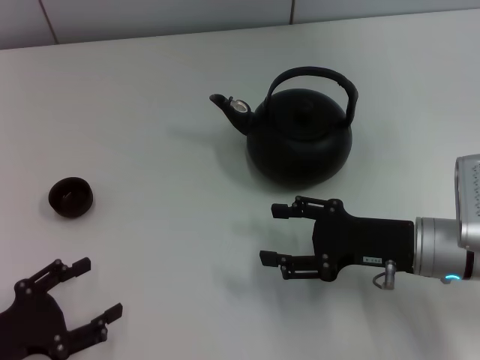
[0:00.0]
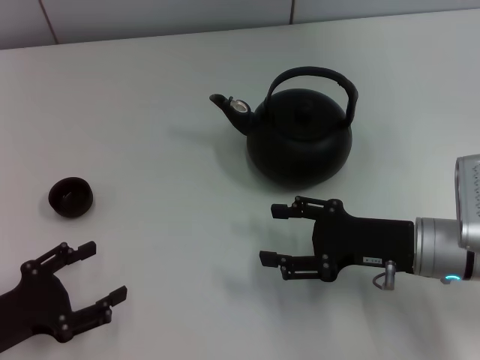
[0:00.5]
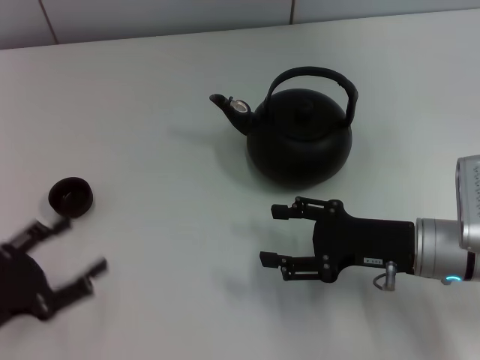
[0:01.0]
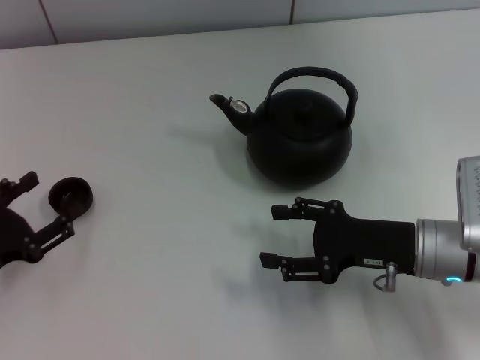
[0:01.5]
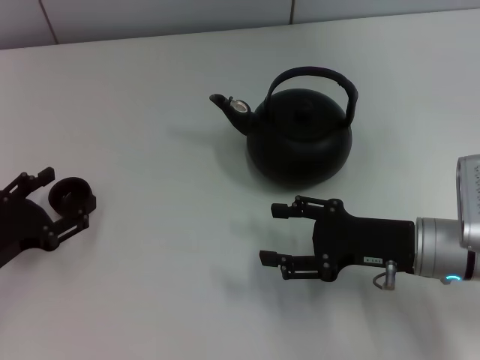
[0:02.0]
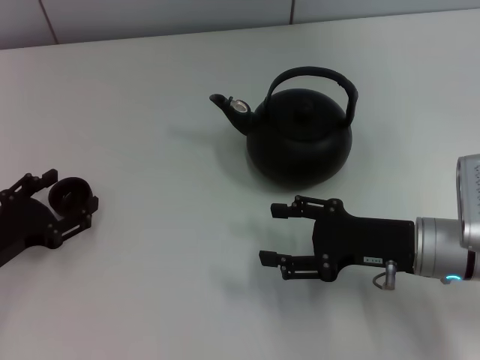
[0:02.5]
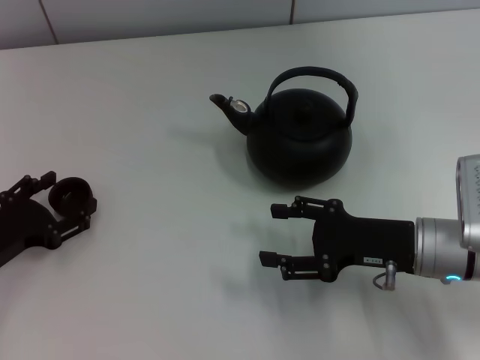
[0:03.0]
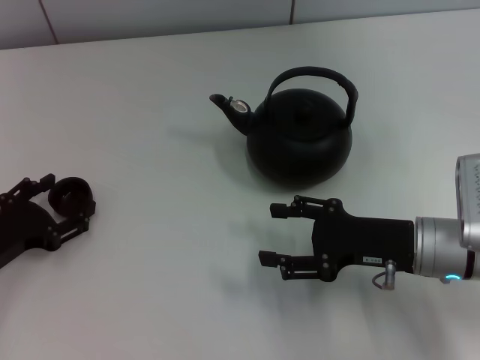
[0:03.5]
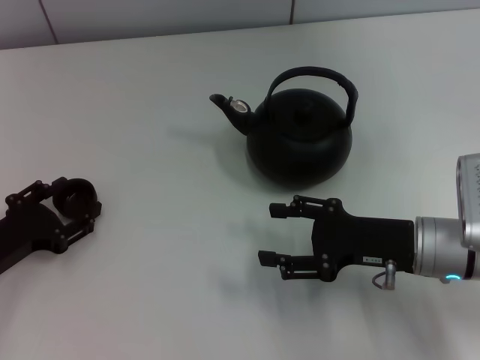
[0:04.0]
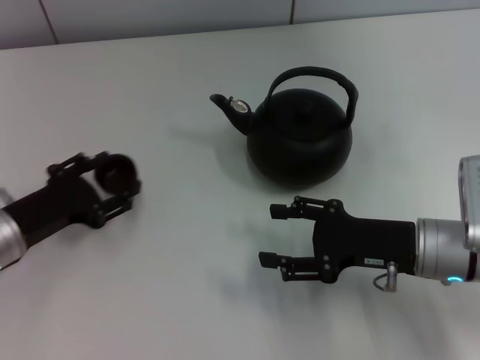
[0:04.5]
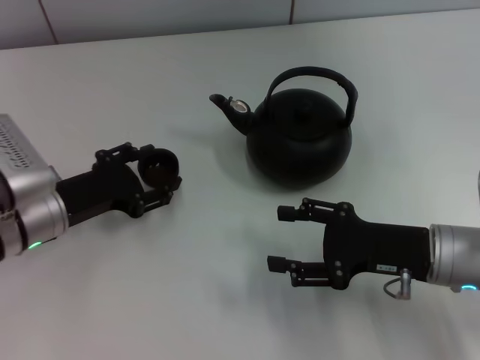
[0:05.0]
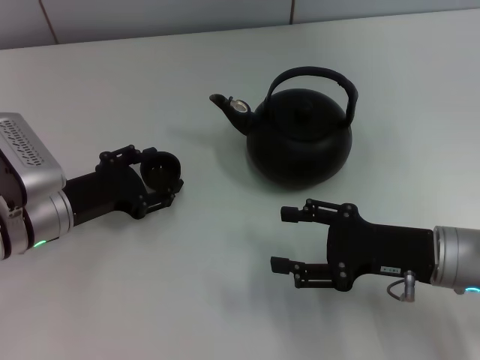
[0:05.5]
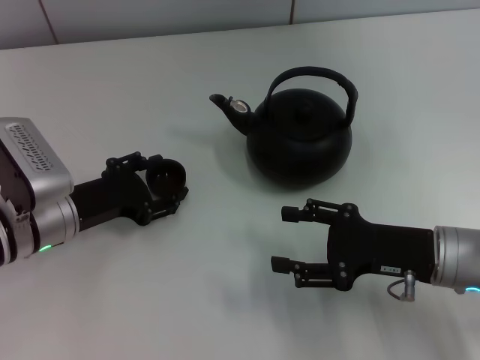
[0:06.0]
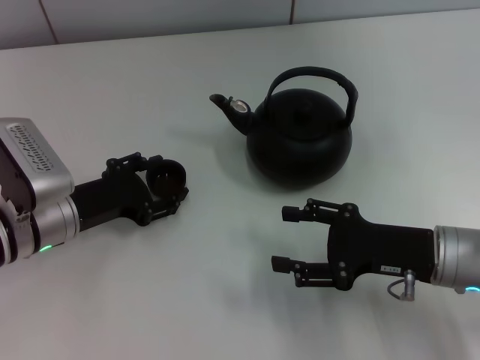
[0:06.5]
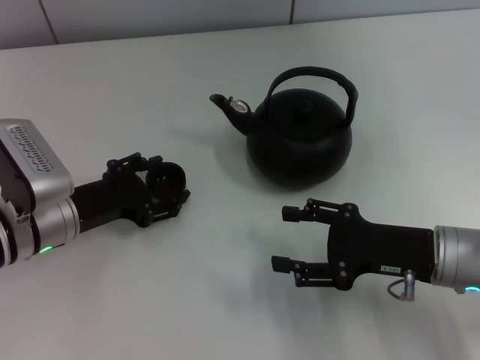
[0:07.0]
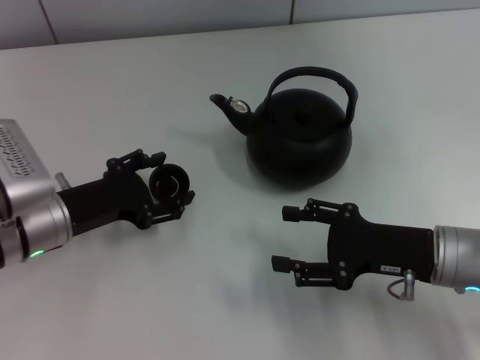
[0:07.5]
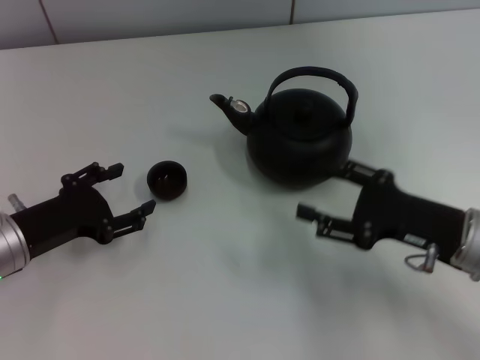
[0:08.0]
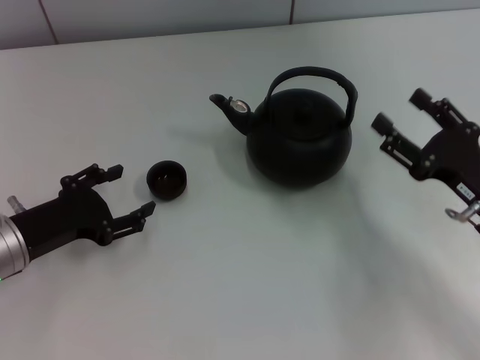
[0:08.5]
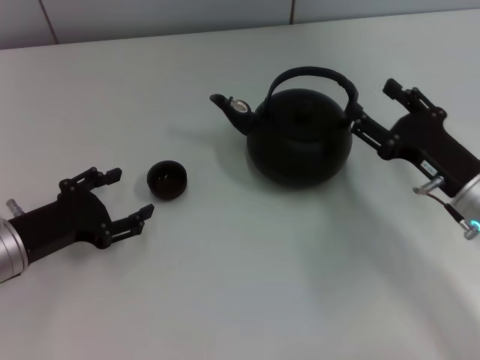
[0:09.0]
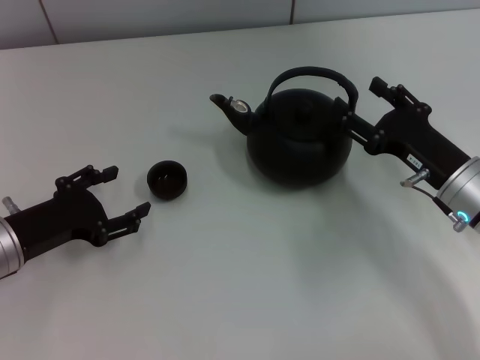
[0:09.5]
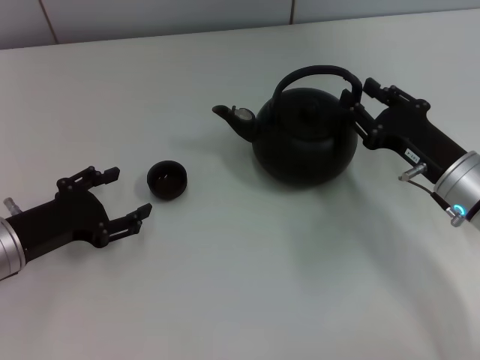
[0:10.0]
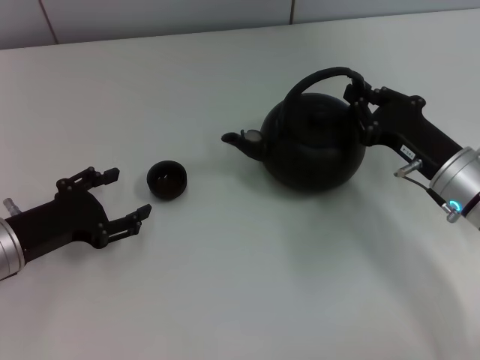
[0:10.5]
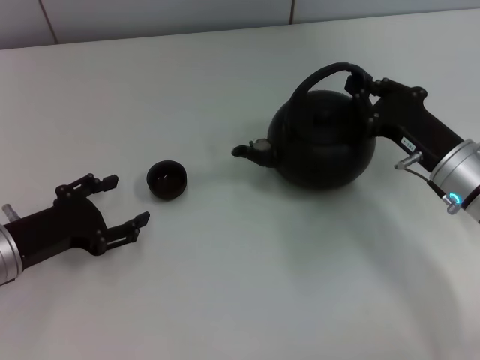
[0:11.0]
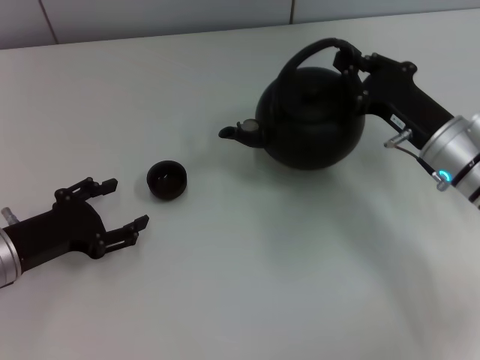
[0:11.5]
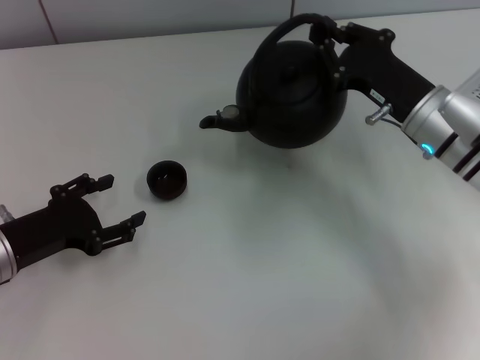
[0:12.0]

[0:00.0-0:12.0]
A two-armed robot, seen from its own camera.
Task of the whole recording: Grasp the handle of the teapot with one hand and pour tea into the teacup.
Step, 0:00.0 to 0:04.5: Pick up the teacup with the left gripper.
Step, 0:05.0 to 0:07.5: Place the teacup in the center of view with the left gripper.
Step, 0:08.0 to 0:11.0: Pick up the teapot with the right gripper.
0:00.0 to 0:02.0: The left gripper travels forward by approximately 10 cm.
0:02.0 to 0:04.0: The left gripper closes its fingers.
0:04.0 to 0:06.0: The left gripper goes approximately 10 cm to the right and forward, and closes.
0:06.0 to 0:08.0: The left gripper shifts by some 5 cm, and opens its fingers.
0:08.0 to 0:10.0: The right gripper is displaced forward by about 5 cm.
0:10.0 to 0:12.0: The right gripper moves forward, approximately 5 cm, and closes its fingers.

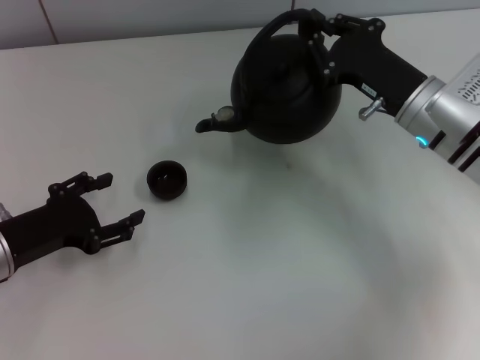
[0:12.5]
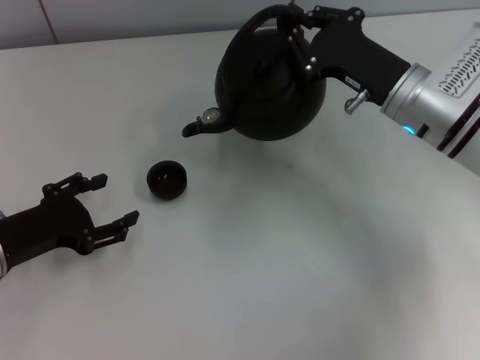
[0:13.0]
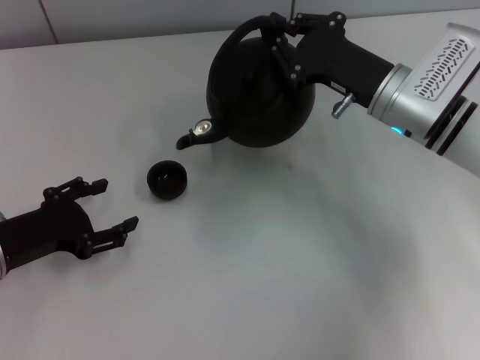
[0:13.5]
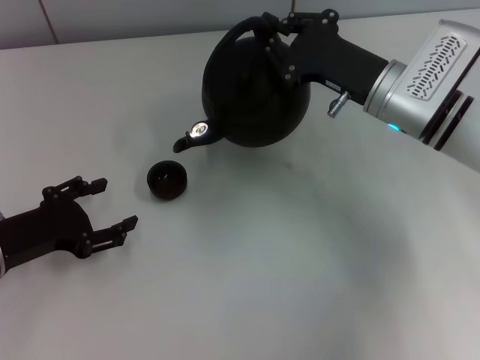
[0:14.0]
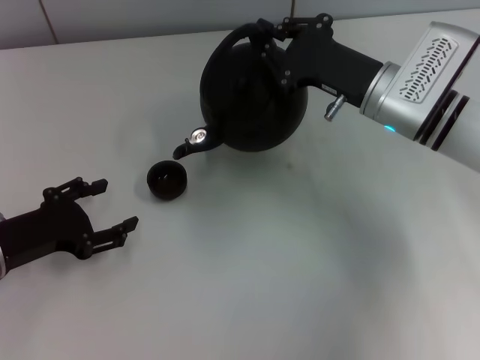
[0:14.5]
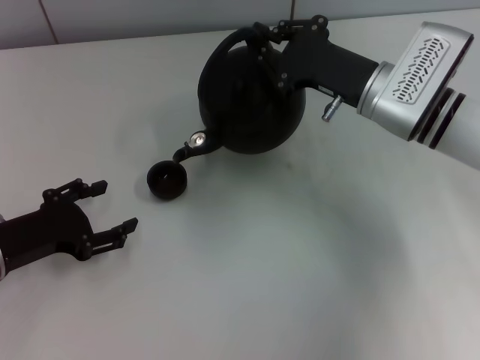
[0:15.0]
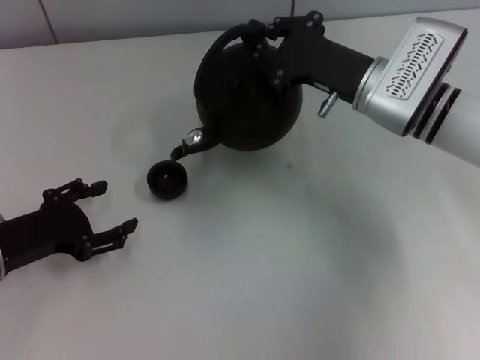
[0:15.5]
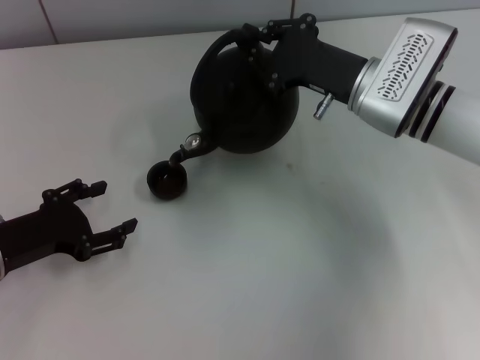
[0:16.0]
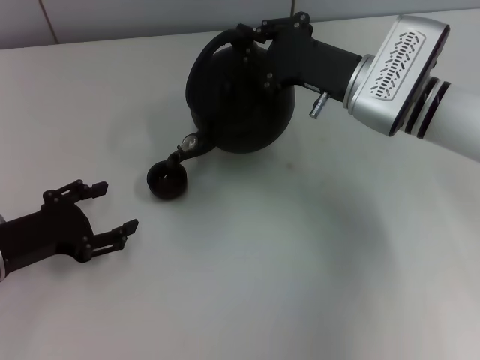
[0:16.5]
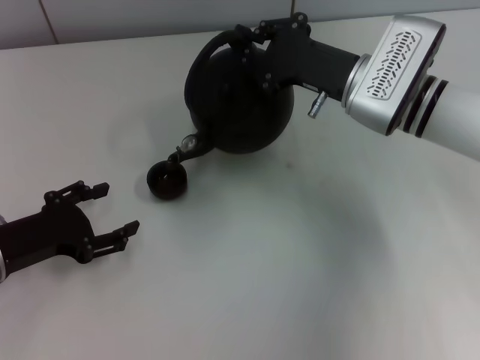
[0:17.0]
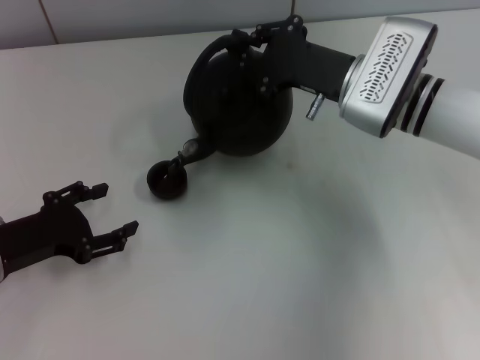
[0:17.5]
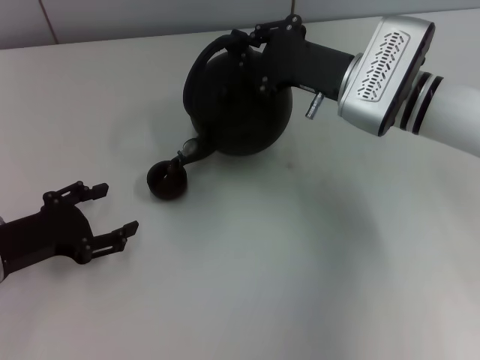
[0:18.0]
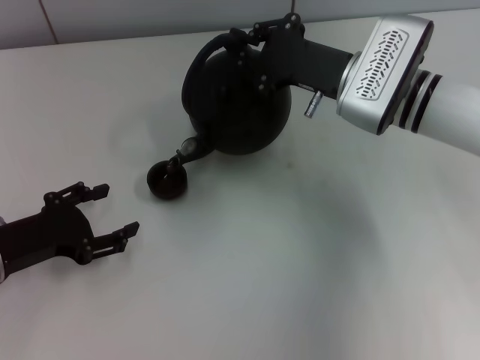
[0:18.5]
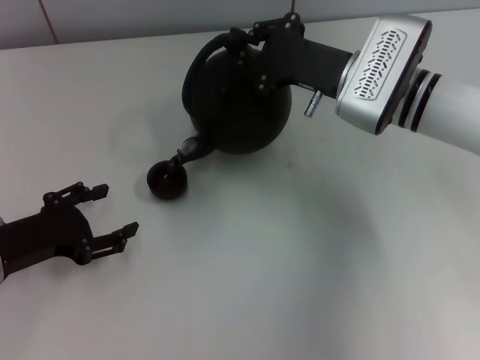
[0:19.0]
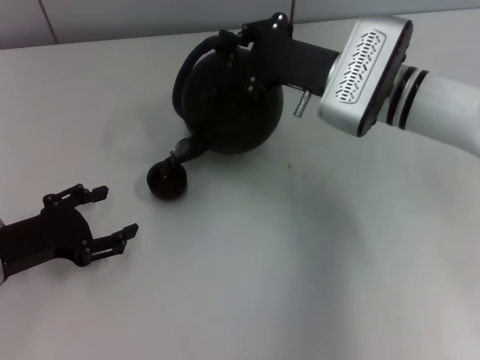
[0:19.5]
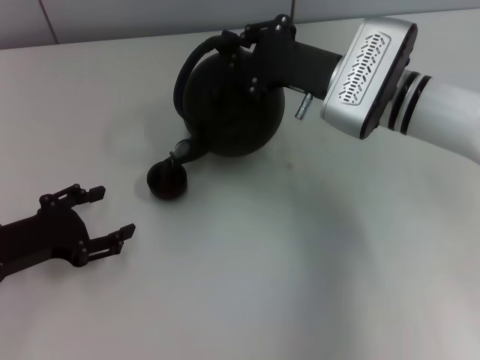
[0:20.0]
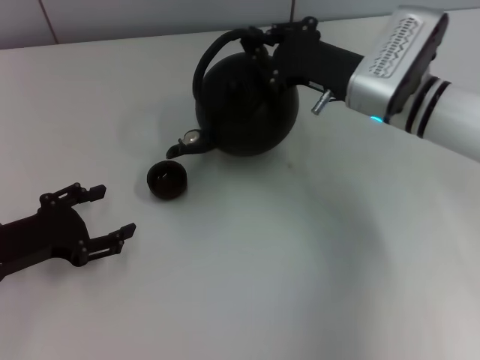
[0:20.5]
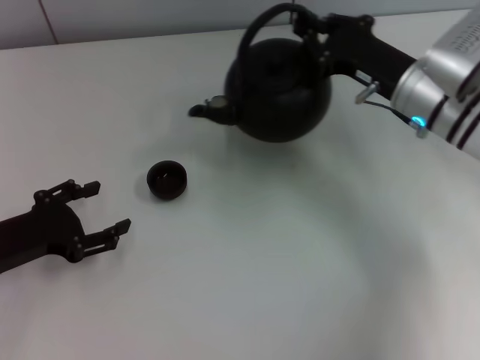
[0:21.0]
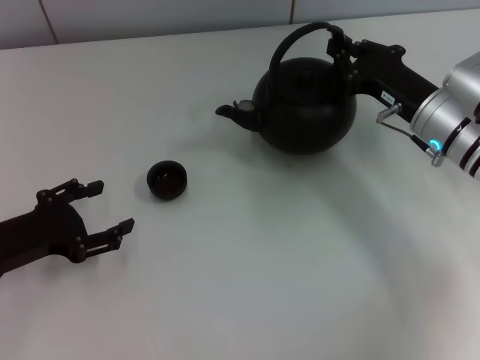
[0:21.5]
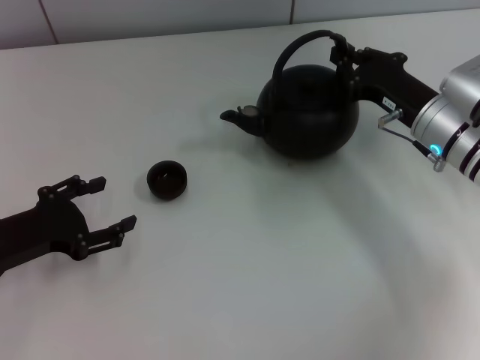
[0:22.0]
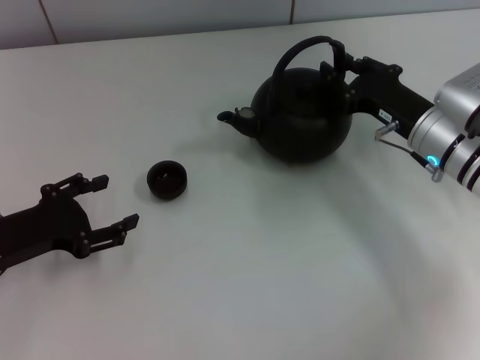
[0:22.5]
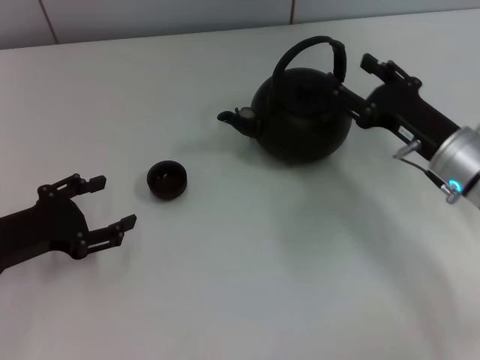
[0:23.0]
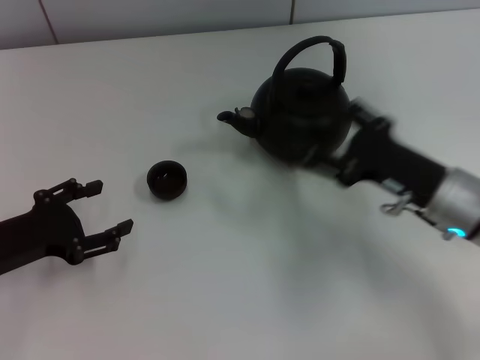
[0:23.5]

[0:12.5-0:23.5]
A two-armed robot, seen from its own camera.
Task of the whole recording: Grasp the handle of the teapot with one hand and pour tea into the teacup.
Step, 0:21.5 to 0:23.0: Put down the teapot with the right gripper.
0:12.5 to 0:16.0: The grippers stay close to where they were, moving slightly.
0:16.0 to 0:20.0: The grippers move only a little.
0:20.0 to 0:21.5: The right gripper moves to the right, some 10 cm.
0:21.5 to 0:23.5: The right gripper shifts approximately 10 cm backward, and opens its fingers.

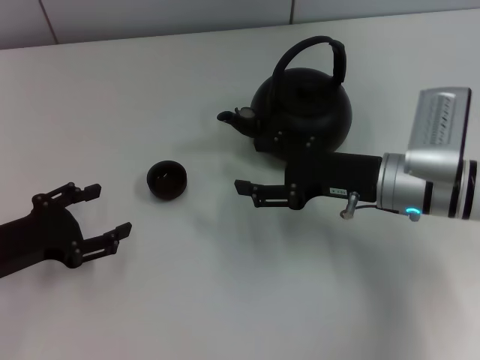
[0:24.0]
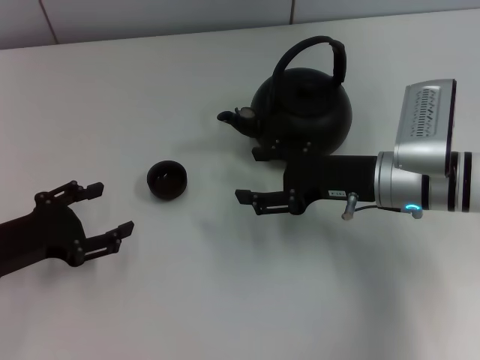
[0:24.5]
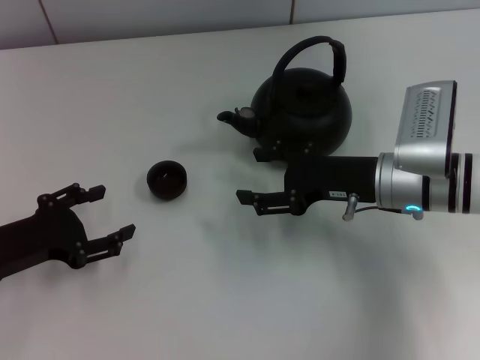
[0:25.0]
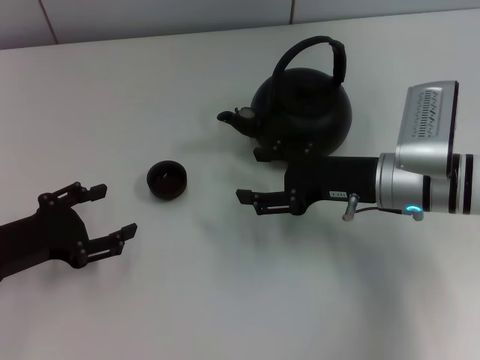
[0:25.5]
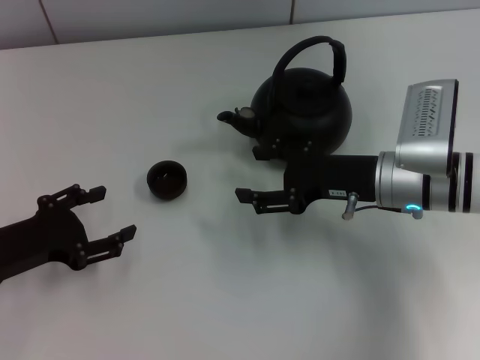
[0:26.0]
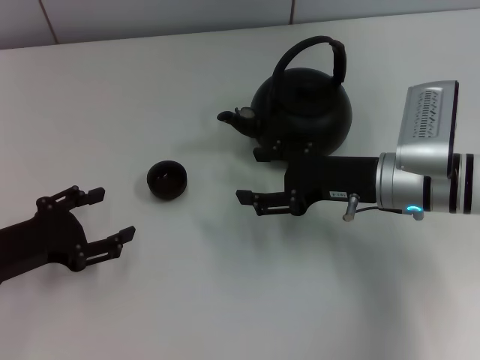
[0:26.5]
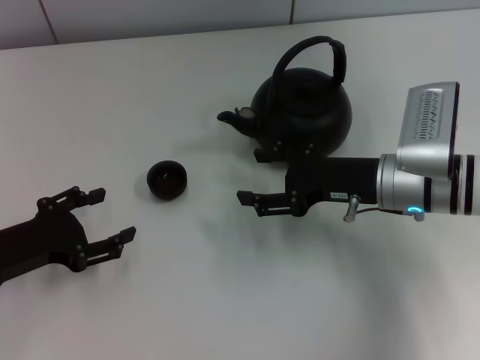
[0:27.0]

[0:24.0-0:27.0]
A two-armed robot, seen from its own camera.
Task of the whole recording: Grasp the handle of the teapot with one hand and pour tea into the teacup.
0:24.0 to 0:25.5: The grippers move only a little.
0:25.5 to 0:27.0: The two grippers keep their place.
